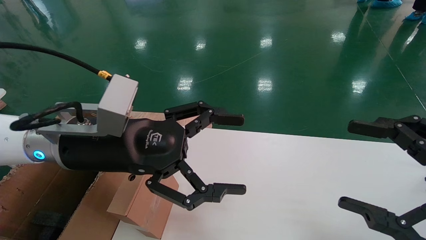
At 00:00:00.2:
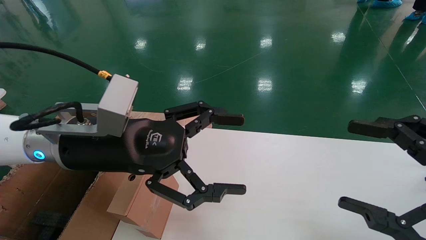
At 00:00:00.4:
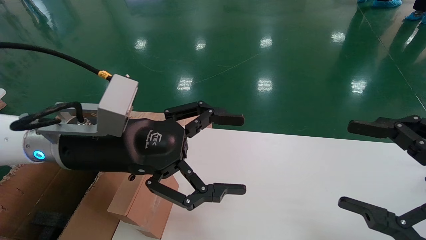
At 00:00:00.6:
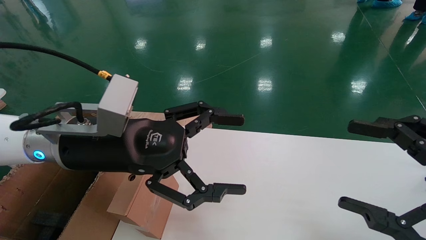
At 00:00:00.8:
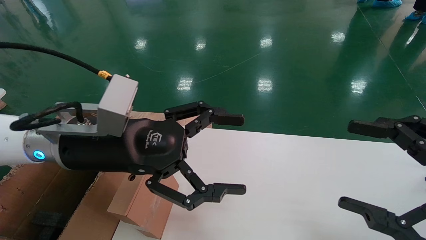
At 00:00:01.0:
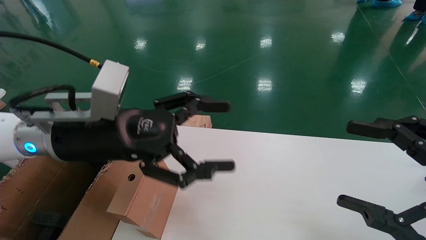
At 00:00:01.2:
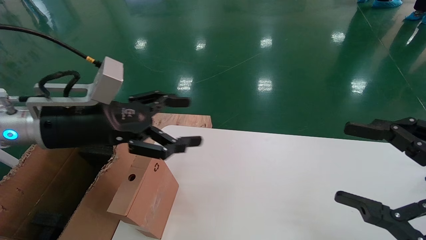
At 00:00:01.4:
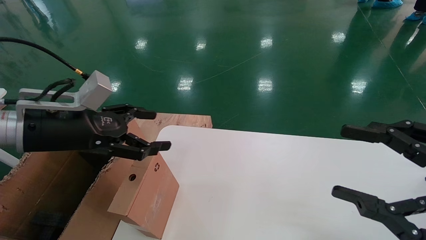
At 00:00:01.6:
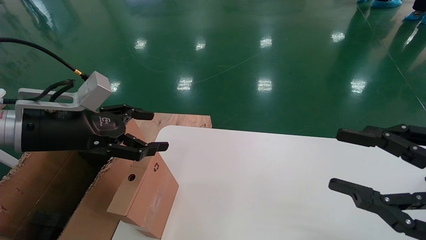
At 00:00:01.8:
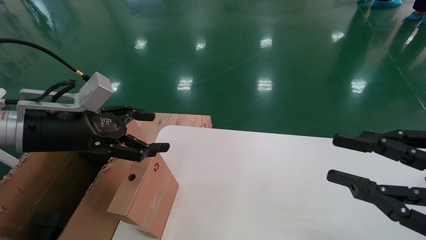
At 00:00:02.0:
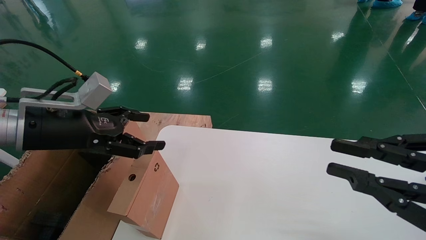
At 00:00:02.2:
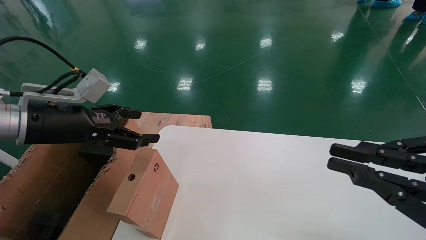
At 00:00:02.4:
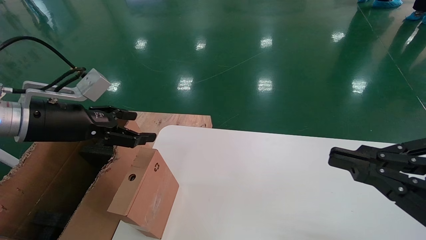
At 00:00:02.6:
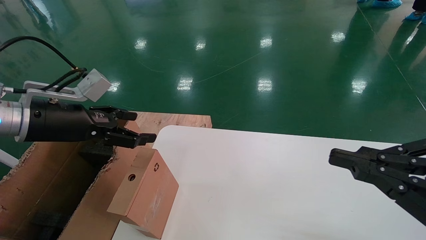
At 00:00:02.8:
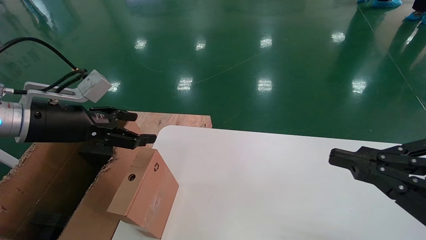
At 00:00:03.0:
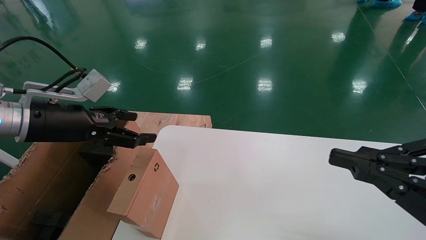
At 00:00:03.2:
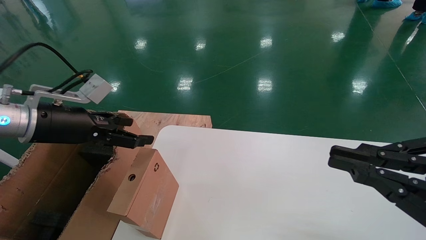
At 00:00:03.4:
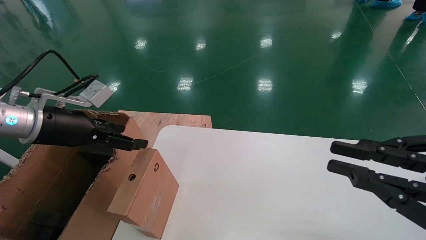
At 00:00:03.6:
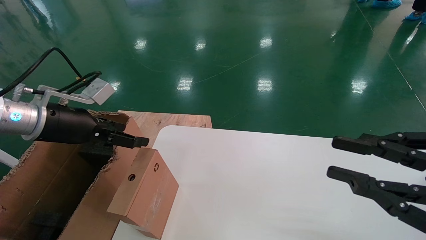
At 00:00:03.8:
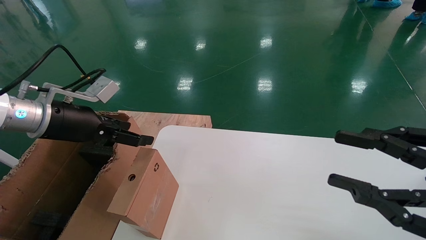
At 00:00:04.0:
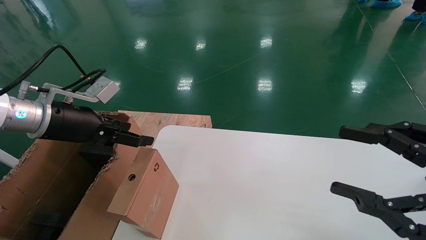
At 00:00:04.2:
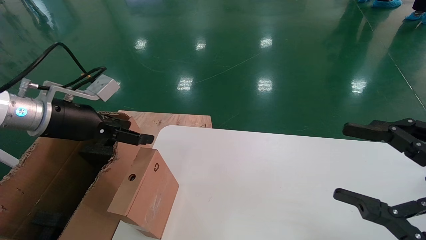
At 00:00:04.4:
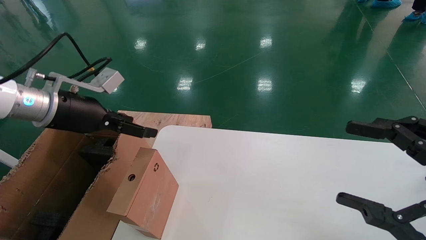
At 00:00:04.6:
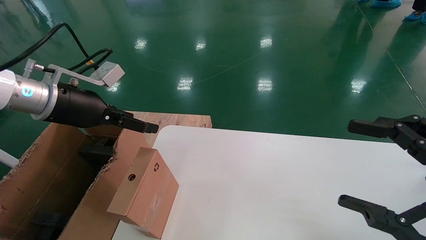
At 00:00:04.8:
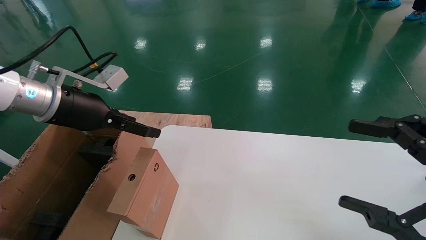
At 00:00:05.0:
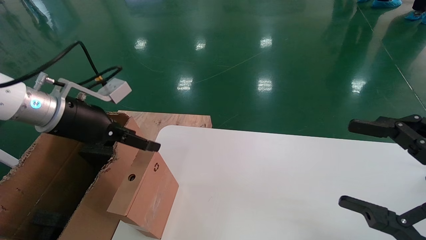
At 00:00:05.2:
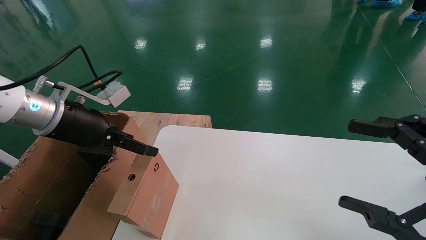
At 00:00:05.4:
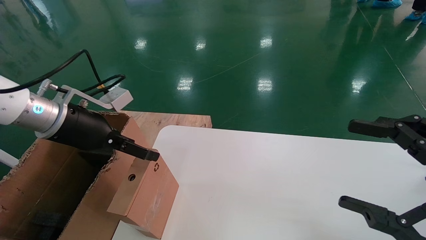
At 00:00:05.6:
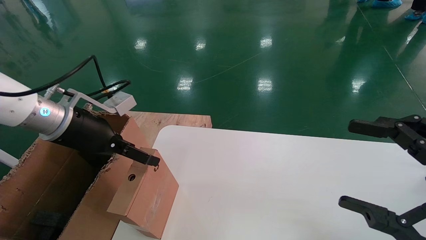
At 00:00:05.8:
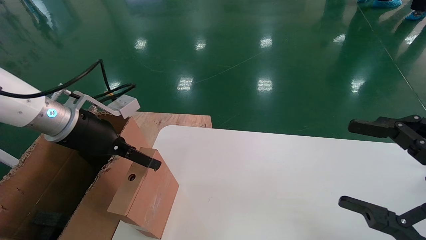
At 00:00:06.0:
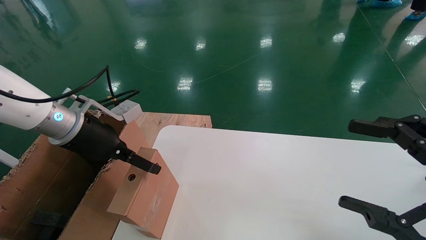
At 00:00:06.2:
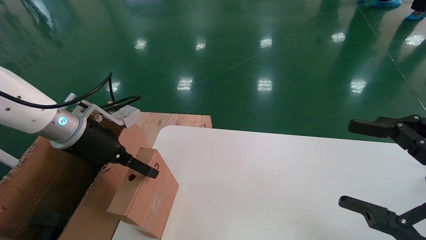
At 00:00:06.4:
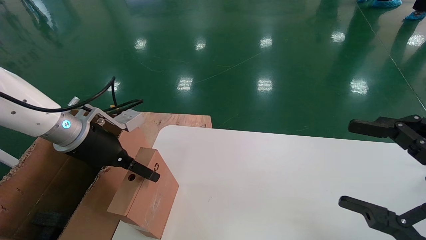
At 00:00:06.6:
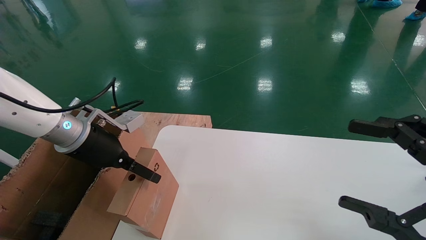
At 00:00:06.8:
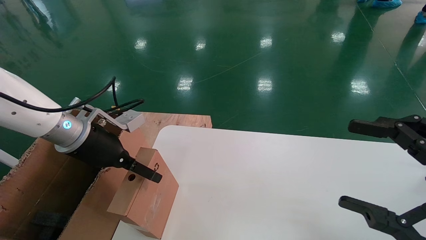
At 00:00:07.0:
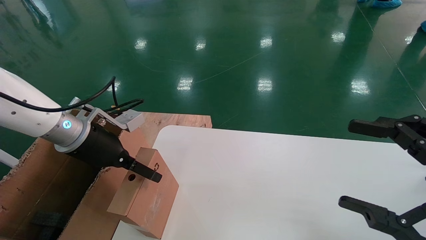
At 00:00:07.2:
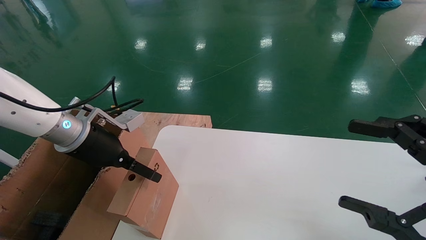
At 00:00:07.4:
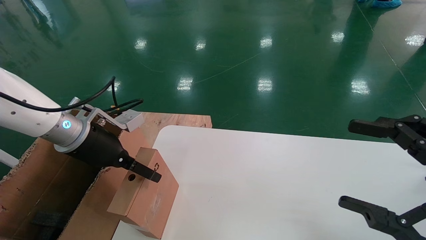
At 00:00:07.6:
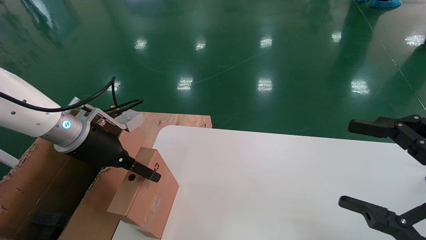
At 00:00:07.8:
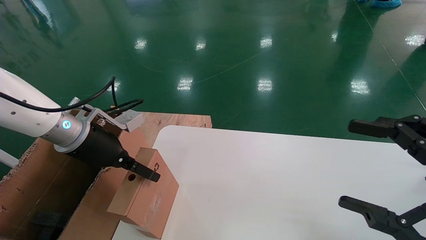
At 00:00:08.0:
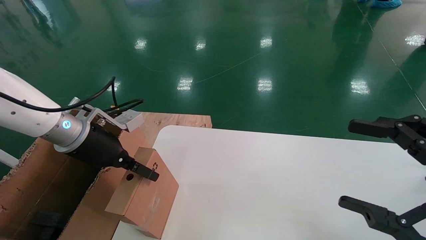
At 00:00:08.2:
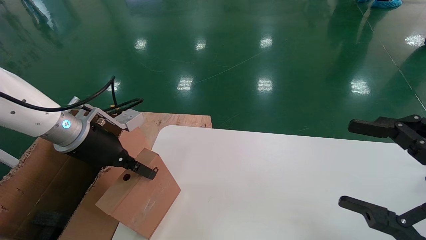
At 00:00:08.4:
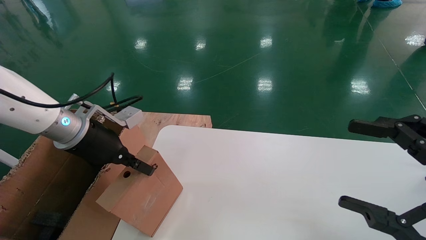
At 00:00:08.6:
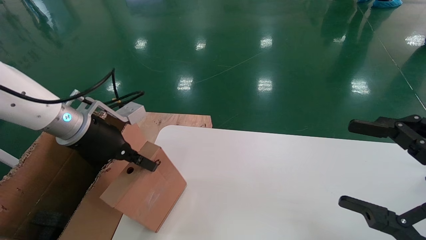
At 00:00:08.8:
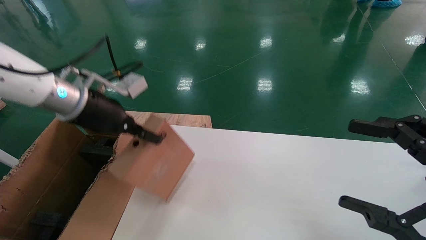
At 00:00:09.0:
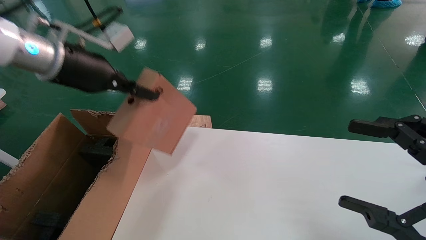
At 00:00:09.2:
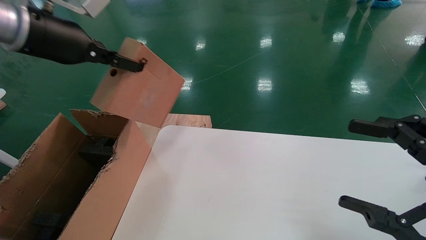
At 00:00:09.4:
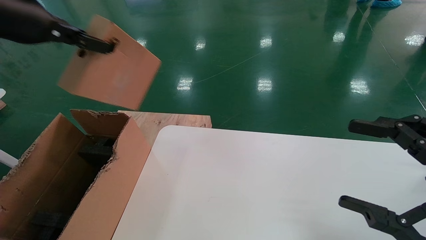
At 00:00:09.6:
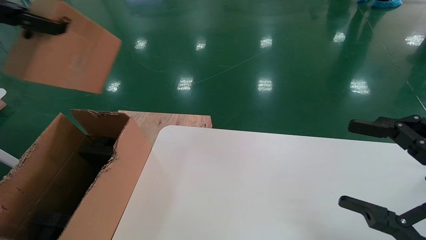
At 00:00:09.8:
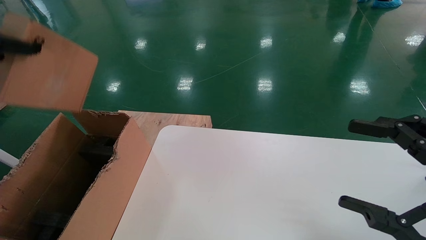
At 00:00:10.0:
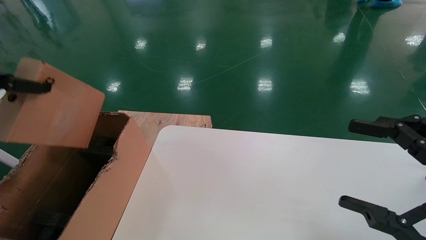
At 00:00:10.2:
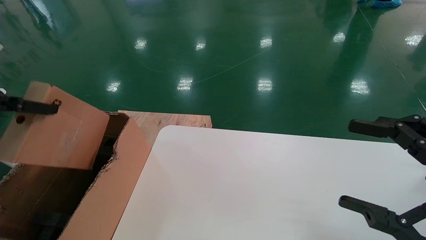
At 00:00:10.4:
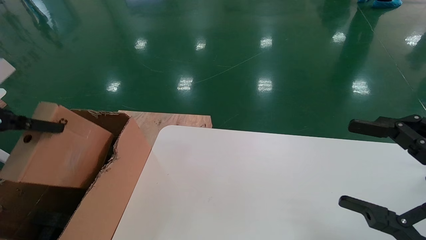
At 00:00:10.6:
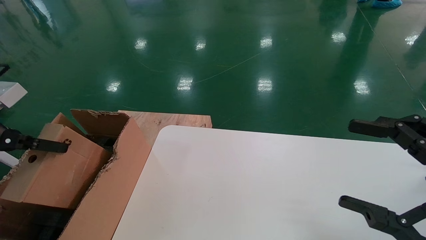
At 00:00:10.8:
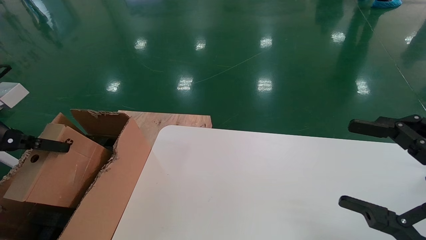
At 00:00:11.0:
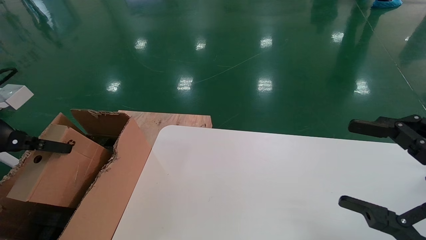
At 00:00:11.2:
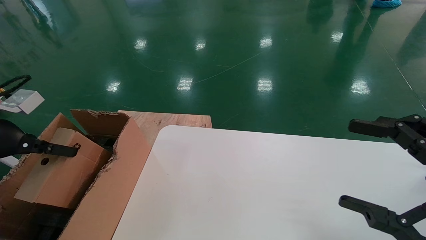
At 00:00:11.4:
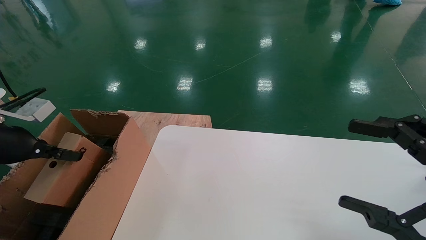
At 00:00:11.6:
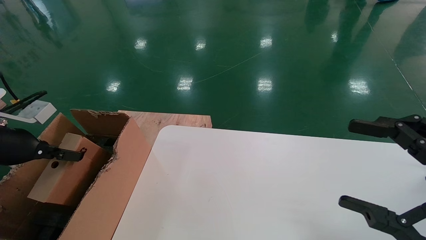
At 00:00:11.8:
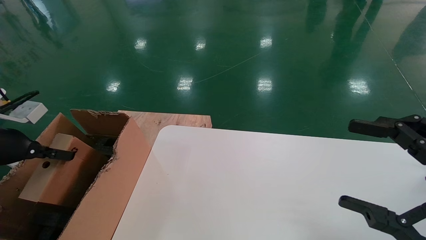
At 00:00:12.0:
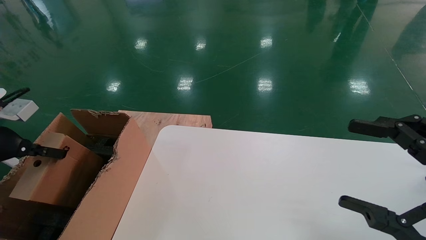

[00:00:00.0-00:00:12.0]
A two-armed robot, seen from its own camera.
Task of the whole recording: place the small box on the table into the large box on the left.
Step, 00:00:01.2 to 00:00:08.4: Pick up the mouse and the power cord paper box.
00:00:00.0 to 00:00:01.6: The left gripper shifts roughly 10 cm to the left.
00:00:01.6 to 00:00:03.0: The right gripper closes.
00:00:03.0 to 00:00:04.4: The right gripper opens.
00:00:04.4 to 00:00:06.0: The left gripper moves about 5 cm.
00:00:06.0 to 00:00:07.6: The grippers move only a little.
00:00:07.6 to 00:00:09.0: The left gripper goes roughly 15 cm upward, and closes.
00:00:09.0 to 00:00:10.4: The left gripper moves to the left and backward, roughly 20 cm.
00:00:10.4 to 00:00:12.0: The left gripper travels downward and to the left by approximately 10 cm.

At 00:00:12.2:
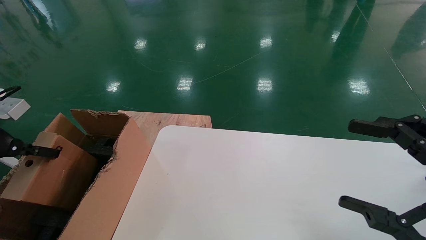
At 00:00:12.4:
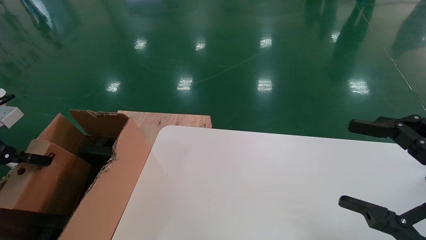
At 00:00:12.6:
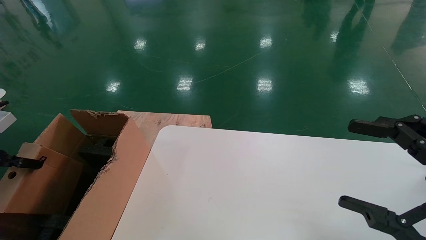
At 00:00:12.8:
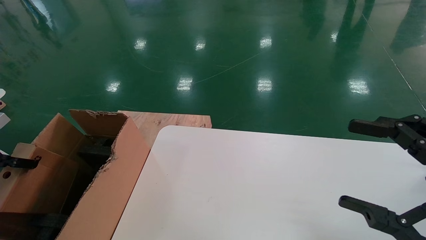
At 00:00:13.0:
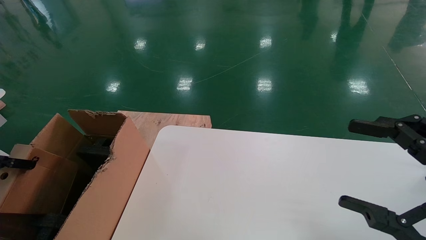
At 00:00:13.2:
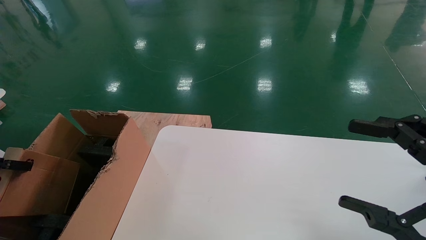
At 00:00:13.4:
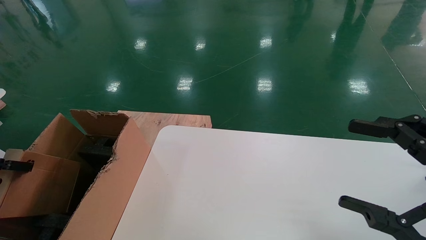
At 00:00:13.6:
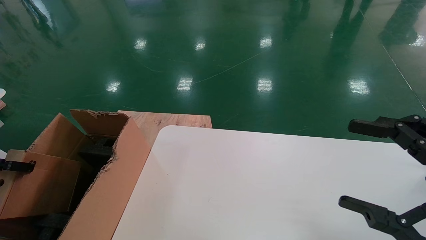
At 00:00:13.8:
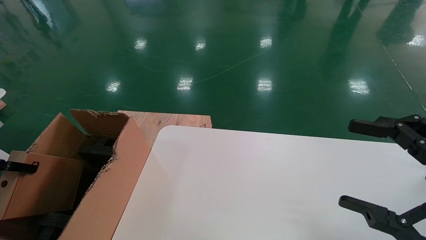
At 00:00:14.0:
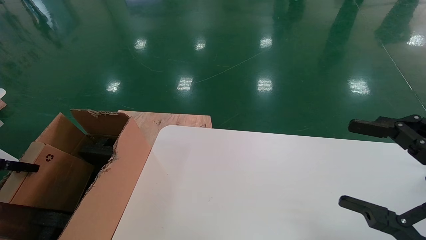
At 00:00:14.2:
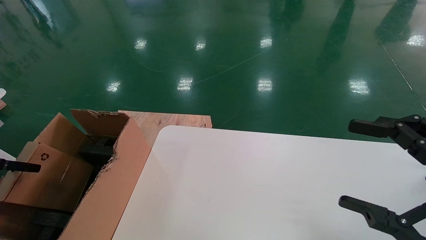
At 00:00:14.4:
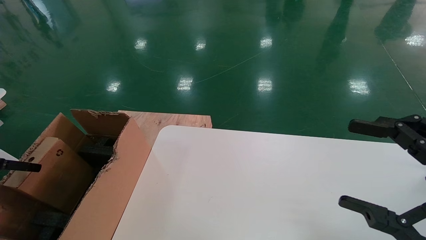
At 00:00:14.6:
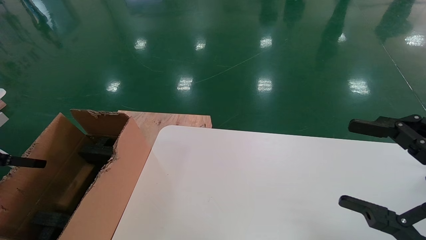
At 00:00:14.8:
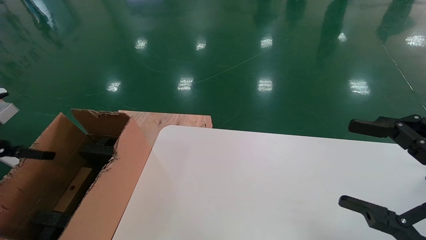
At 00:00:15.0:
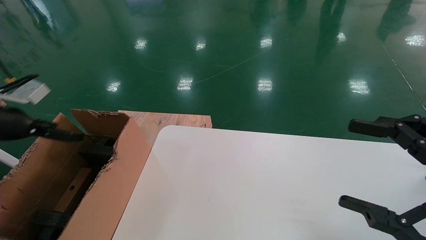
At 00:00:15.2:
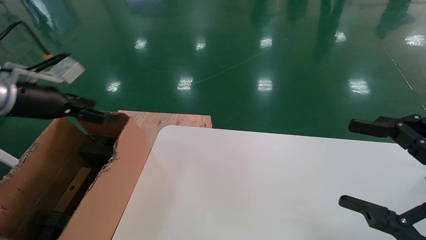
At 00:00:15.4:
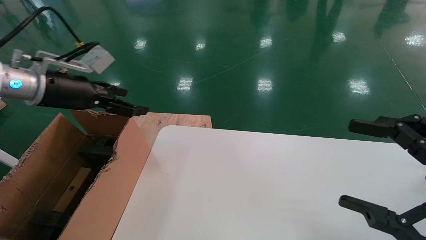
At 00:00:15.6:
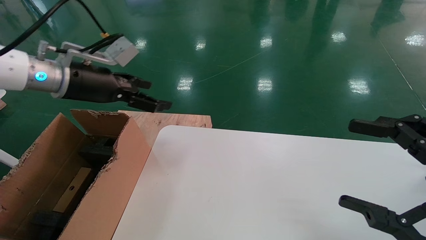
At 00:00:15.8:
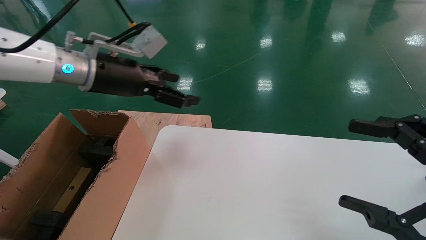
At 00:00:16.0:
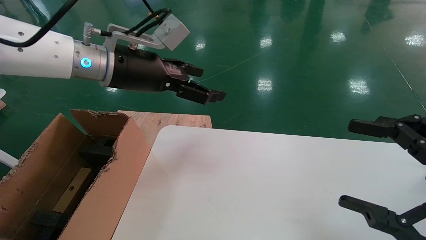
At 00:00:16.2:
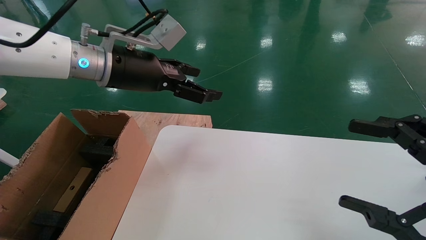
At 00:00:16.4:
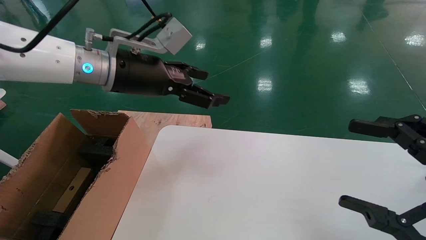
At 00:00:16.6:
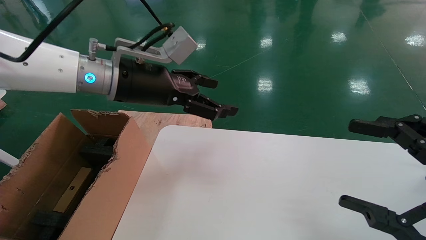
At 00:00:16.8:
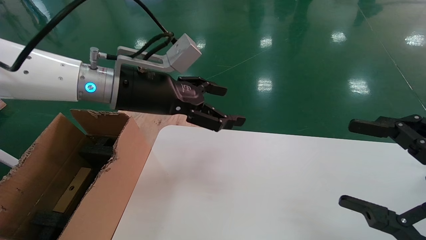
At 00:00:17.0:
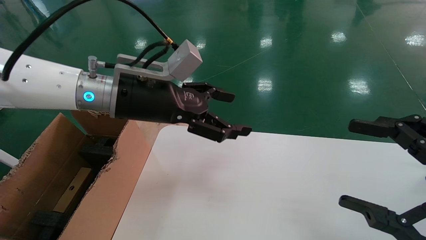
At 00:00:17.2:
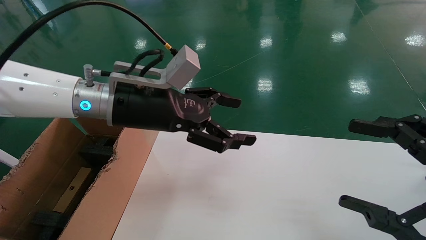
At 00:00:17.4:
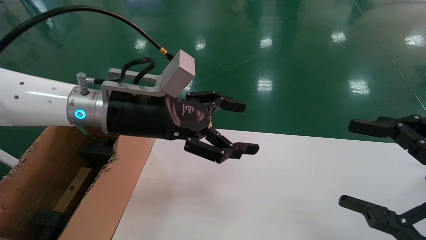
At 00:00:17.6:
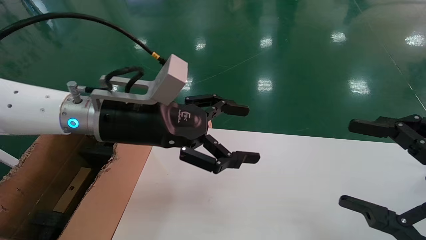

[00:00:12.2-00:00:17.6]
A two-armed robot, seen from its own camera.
Task of the whole recording: place the small box on the table into the large box on the left.
Step, 00:00:12.2 to 00:00:14.6: Place the mouse and the power cord paper box into the container.
00:00:12.2 to 00:00:13.6: The left gripper is displaced to the left by some 10 cm.
00:00:13.6 to 00:00:15.0: The left gripper heads to the right, upward and forward, covering about 15 cm, and opens its fingers.
00:00:15.0 to 00:00:16.2: The left gripper shifts roughly 25 cm to the right.
00:00:16.2 to 00:00:17.6: The left gripper travels downward and backward by about 10 cm.
